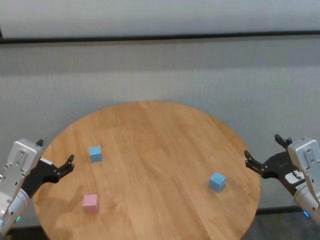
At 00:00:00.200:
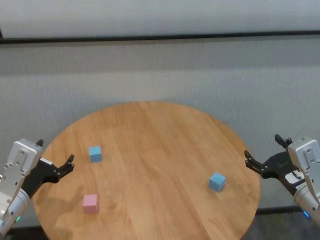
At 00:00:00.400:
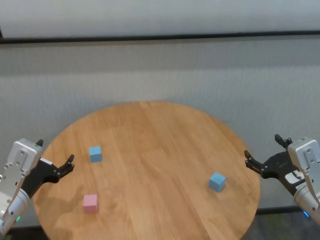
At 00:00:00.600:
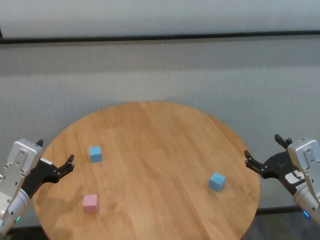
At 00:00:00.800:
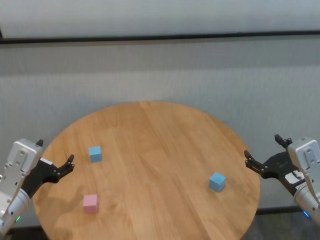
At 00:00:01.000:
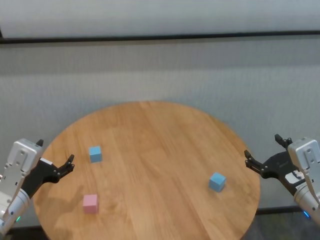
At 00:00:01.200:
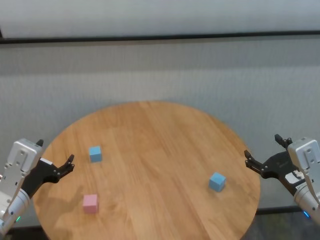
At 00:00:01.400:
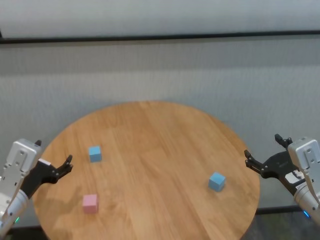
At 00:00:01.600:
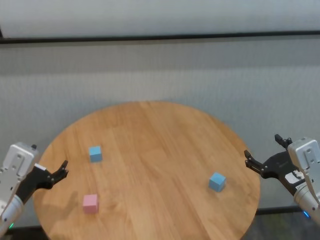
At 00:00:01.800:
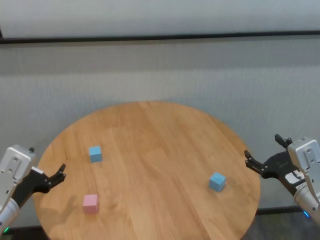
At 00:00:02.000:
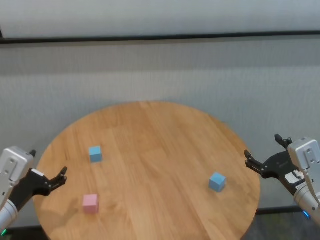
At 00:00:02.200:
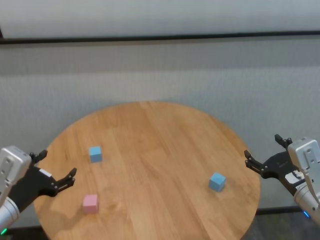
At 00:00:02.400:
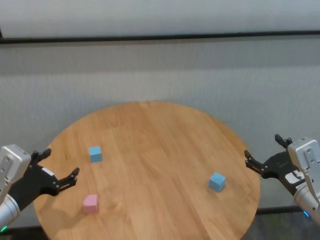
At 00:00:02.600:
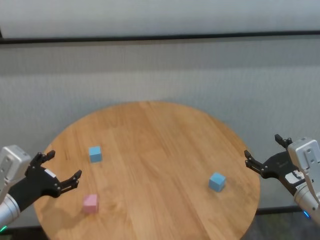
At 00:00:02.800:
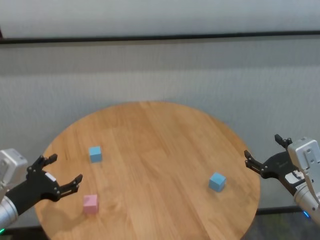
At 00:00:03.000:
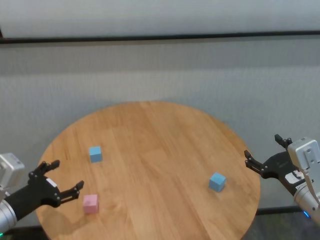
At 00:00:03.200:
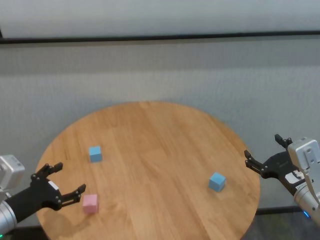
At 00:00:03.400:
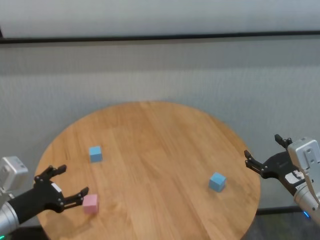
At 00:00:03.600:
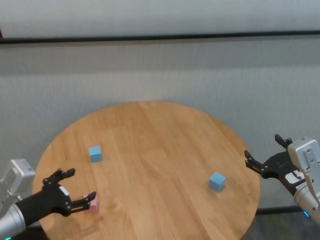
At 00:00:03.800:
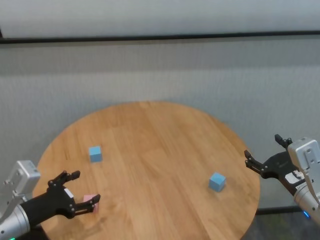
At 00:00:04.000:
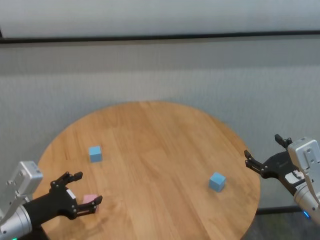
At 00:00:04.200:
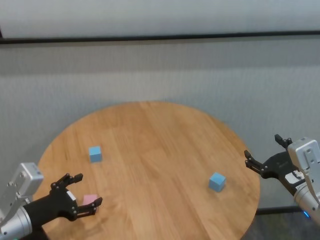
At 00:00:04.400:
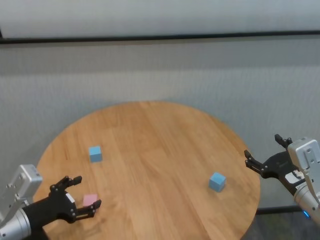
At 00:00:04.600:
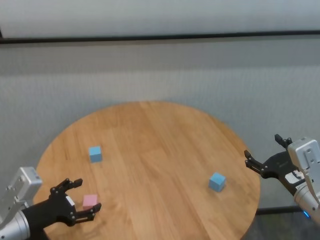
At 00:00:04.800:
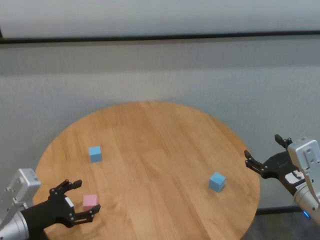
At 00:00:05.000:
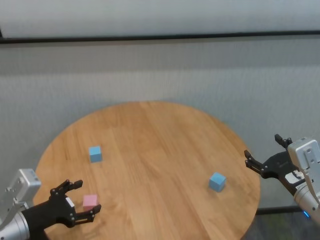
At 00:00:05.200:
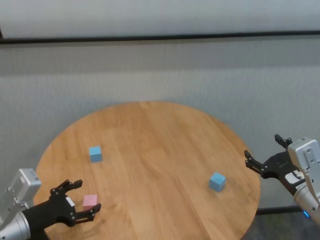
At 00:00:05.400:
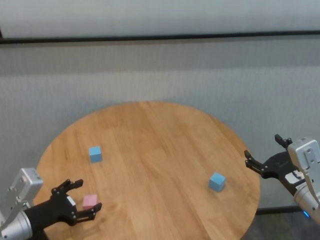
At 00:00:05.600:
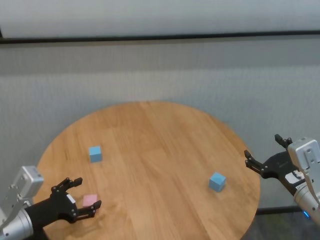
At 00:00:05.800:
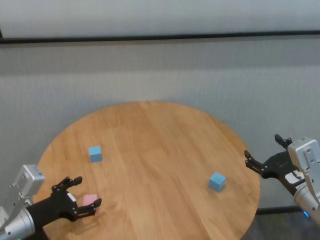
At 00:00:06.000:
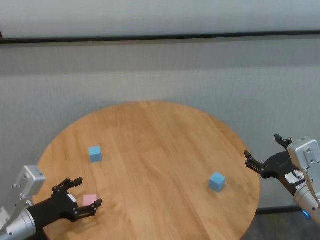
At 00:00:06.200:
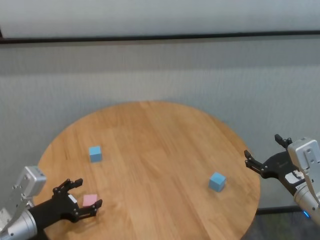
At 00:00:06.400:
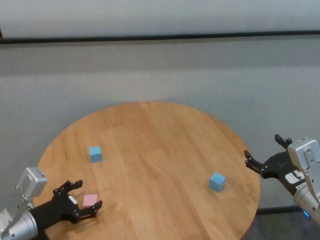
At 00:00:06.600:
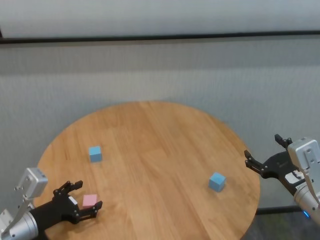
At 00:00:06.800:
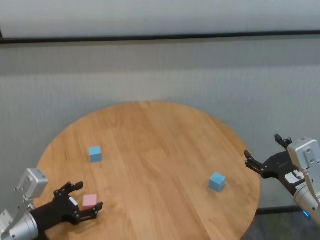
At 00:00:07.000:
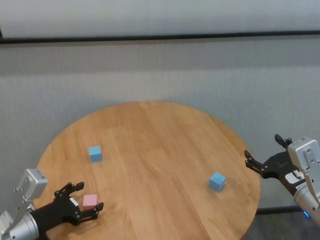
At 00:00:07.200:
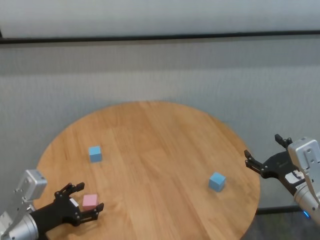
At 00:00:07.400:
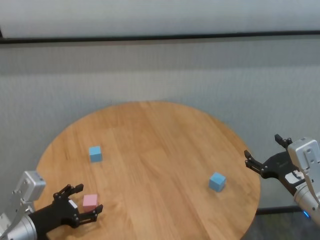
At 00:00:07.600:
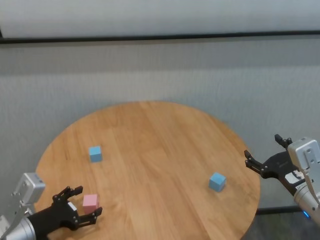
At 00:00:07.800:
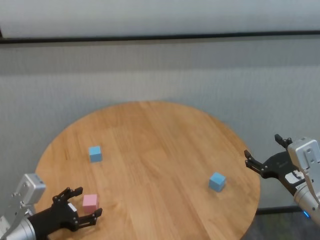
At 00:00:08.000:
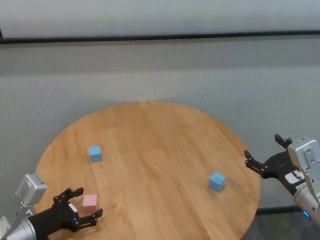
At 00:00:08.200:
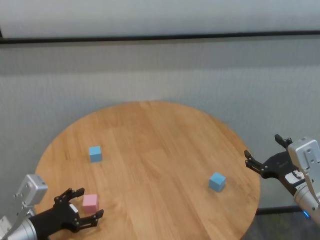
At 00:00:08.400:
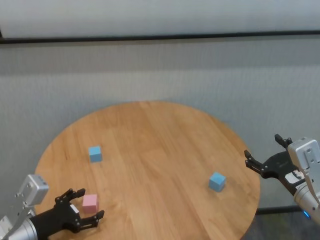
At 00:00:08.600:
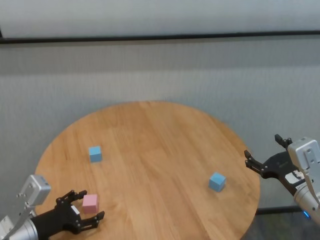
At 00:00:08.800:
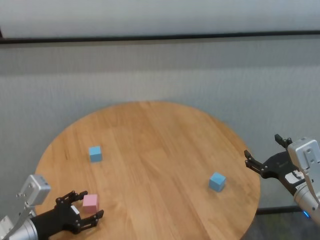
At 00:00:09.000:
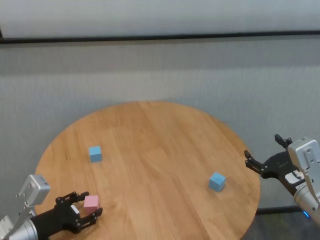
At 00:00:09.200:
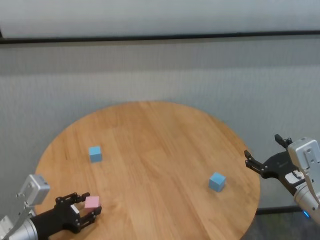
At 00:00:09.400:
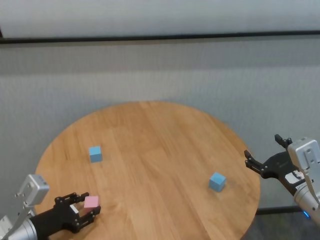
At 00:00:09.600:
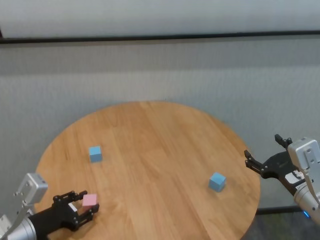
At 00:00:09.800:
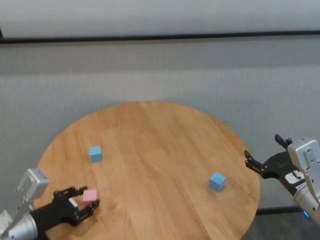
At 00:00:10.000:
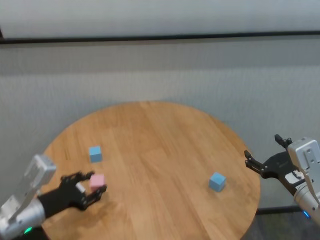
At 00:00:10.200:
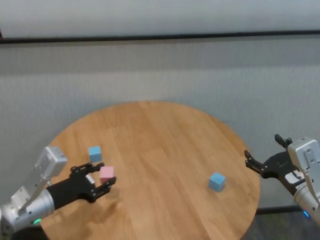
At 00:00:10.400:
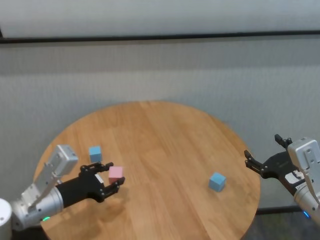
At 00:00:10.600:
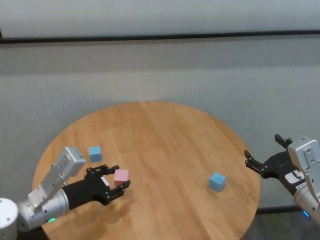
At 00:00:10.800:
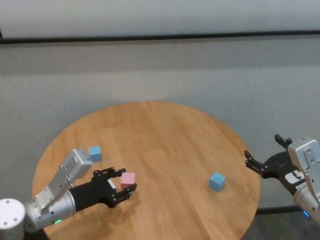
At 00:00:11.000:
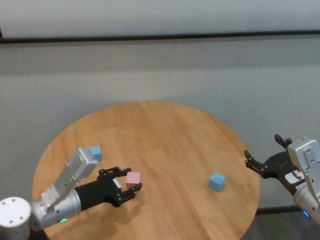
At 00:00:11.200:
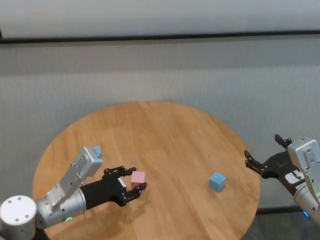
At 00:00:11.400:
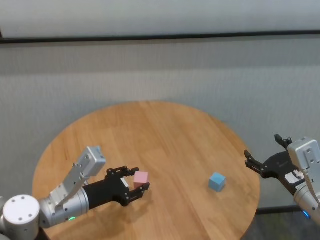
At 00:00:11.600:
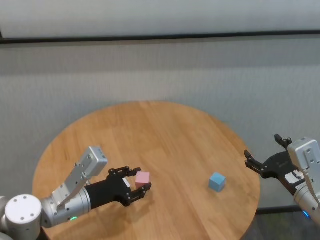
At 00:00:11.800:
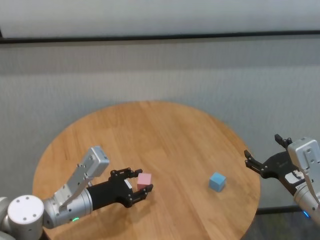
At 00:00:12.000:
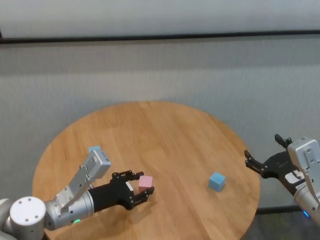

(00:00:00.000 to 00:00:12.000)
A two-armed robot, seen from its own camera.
Task of the whole recording: stack building blocks on the table.
Step, 00:00:00.000 - 00:00:09.400: Grasp the pink building block with left gripper.

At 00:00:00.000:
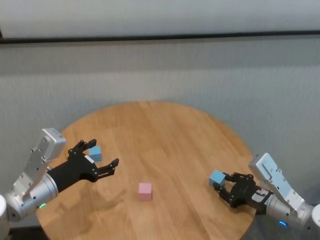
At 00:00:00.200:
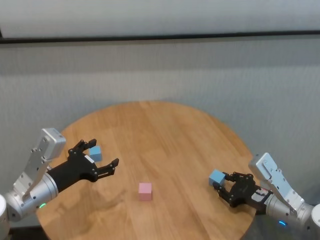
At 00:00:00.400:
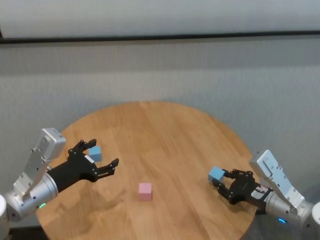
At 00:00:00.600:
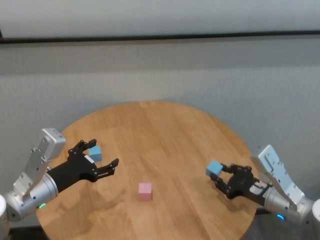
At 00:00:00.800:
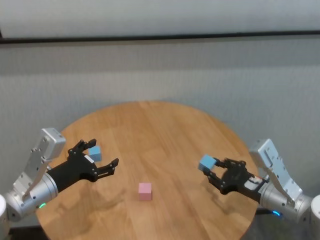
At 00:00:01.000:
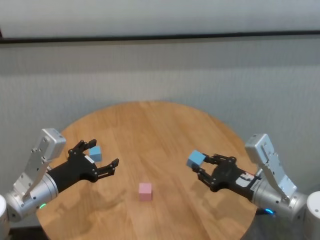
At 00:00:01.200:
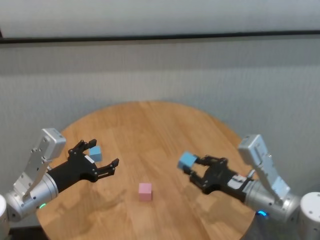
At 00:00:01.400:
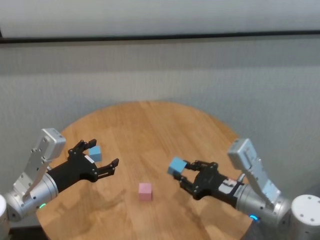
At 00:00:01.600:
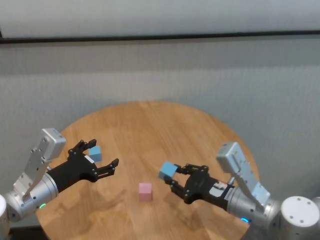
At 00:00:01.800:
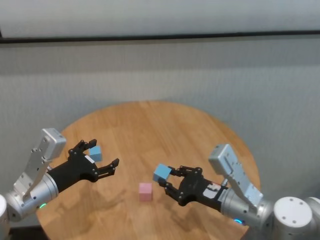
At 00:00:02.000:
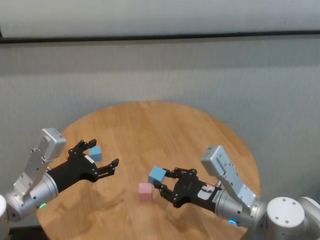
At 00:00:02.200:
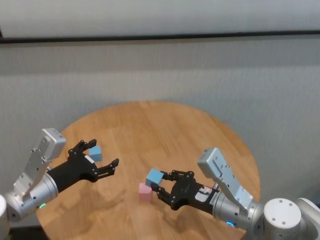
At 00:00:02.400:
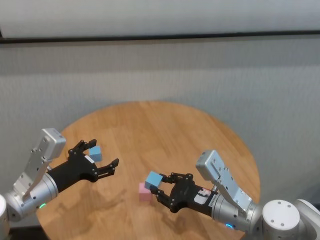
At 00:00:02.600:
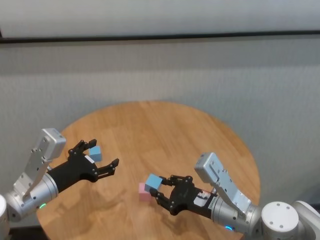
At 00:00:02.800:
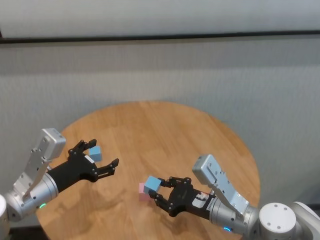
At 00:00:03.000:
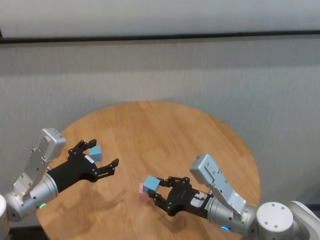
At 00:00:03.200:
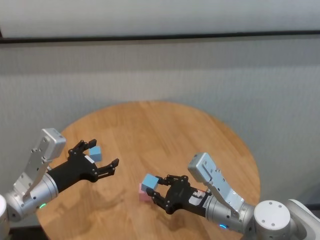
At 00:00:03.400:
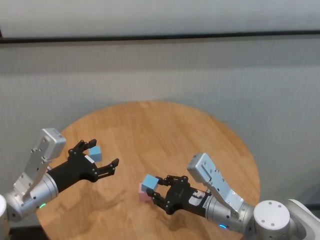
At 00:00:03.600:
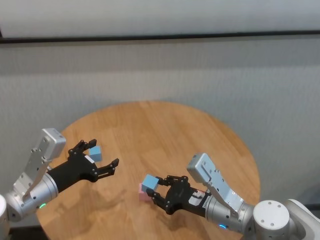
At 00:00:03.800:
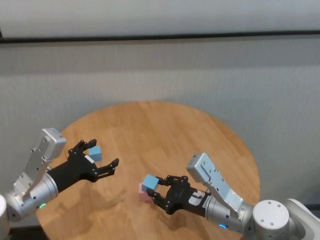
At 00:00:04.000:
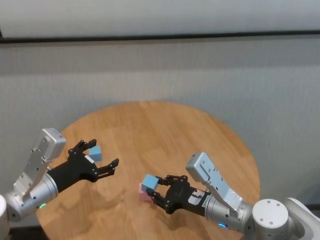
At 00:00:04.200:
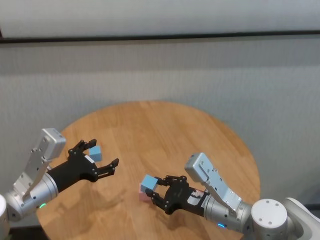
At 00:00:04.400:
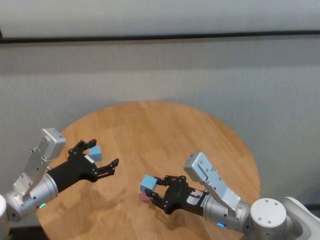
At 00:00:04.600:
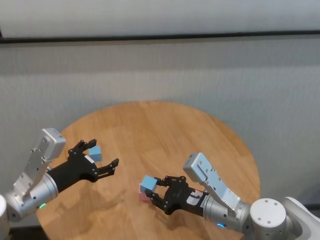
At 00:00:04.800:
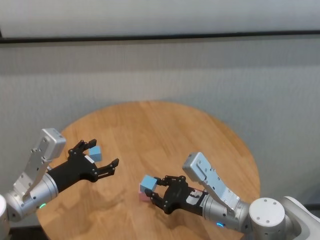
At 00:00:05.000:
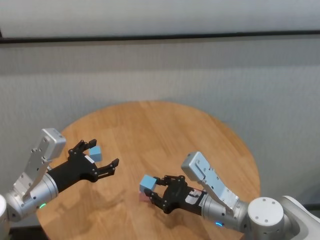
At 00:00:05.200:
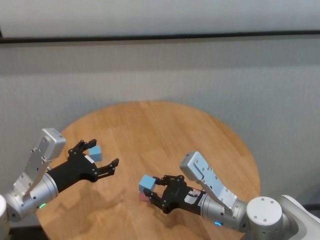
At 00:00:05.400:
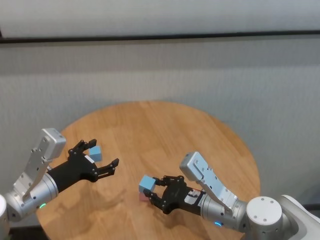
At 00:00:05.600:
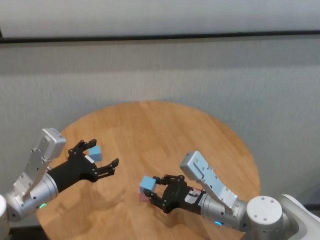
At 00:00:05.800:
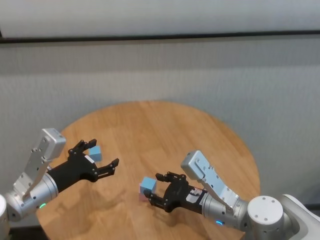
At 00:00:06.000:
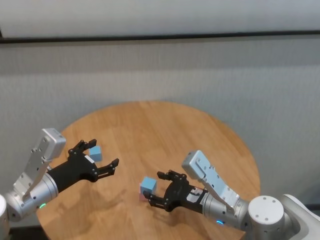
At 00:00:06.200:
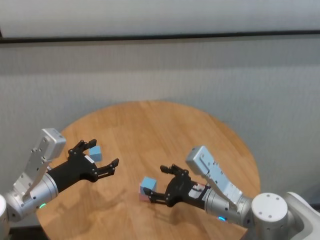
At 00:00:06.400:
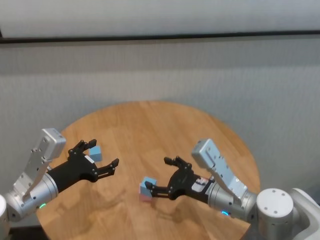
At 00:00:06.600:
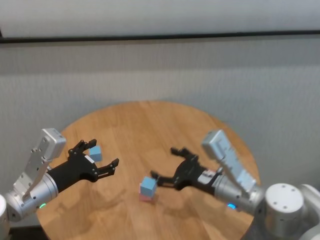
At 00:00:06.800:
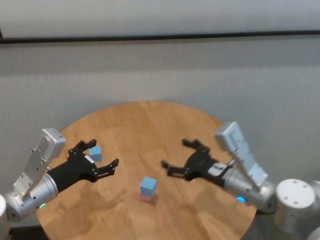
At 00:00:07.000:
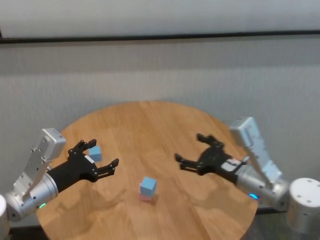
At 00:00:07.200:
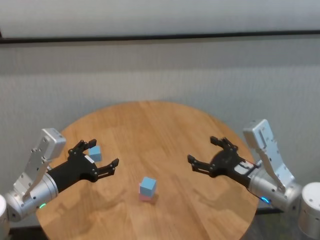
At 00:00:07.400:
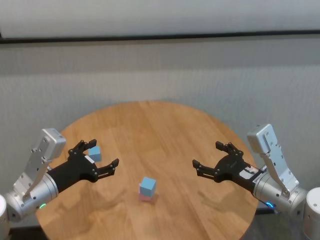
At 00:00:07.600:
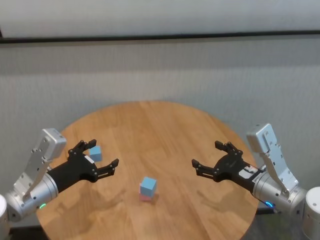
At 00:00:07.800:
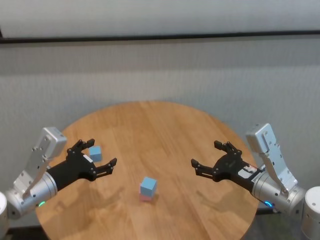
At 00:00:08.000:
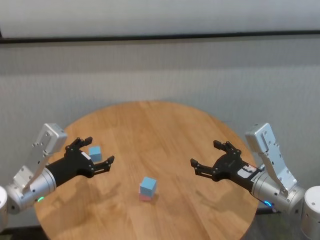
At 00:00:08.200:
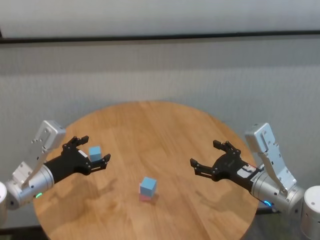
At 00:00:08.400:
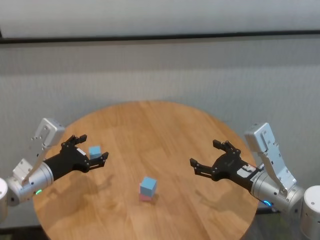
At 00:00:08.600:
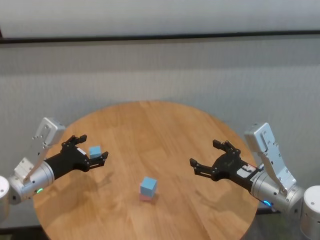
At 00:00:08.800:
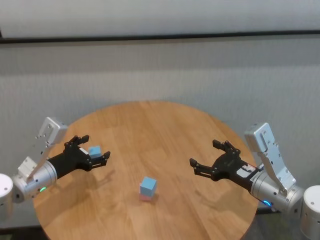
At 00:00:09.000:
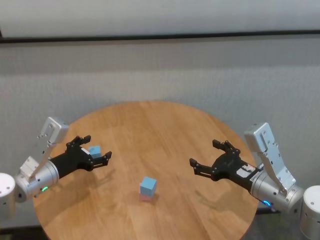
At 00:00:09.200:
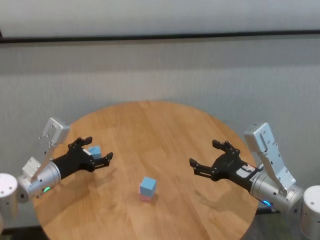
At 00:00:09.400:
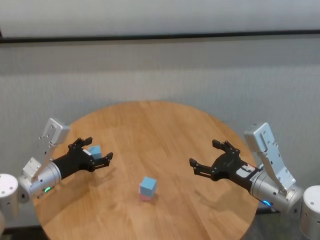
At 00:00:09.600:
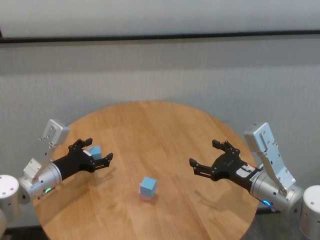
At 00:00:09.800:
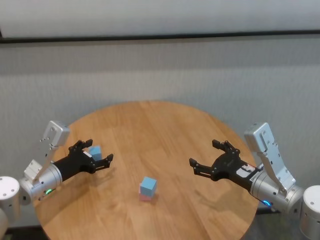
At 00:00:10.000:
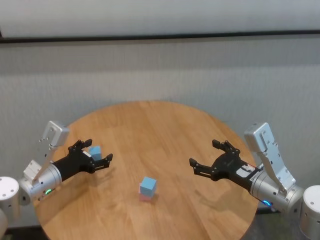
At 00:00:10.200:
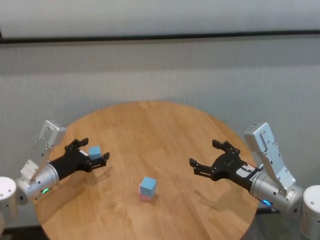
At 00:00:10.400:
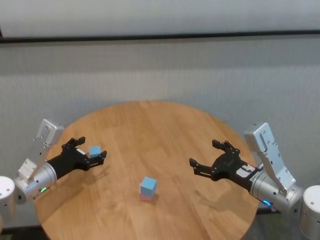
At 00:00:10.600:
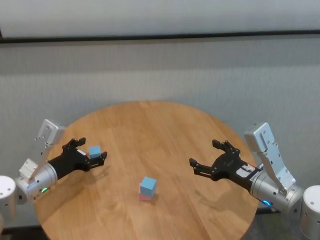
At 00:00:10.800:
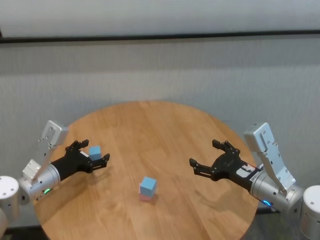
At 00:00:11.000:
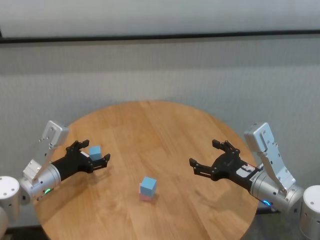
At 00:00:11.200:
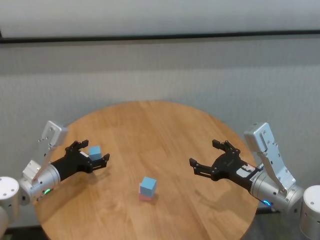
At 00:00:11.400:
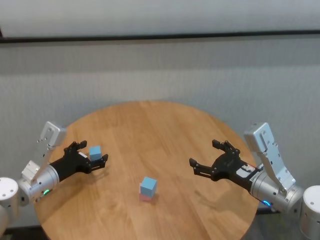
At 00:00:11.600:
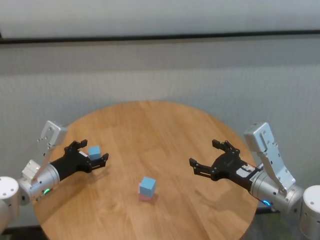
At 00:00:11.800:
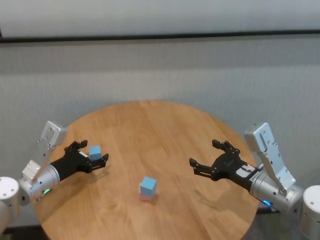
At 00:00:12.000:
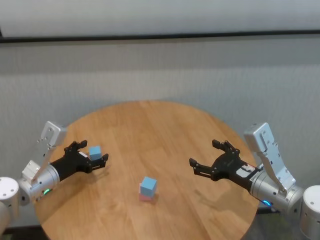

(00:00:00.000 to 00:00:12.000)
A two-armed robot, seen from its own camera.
Task of the whole recording: stack building blocks on the table.
Step, 00:00:00.200 - 00:00:06.000: Place the blue building block on the pink building blocks with right gripper.
